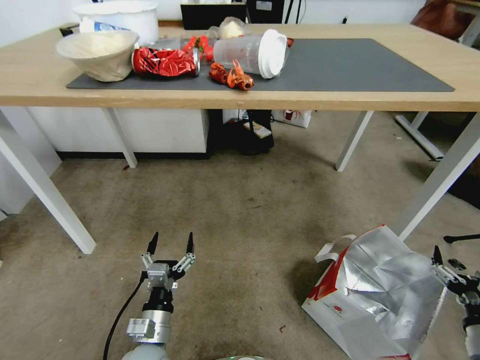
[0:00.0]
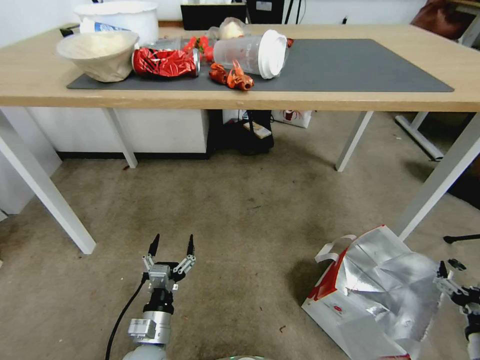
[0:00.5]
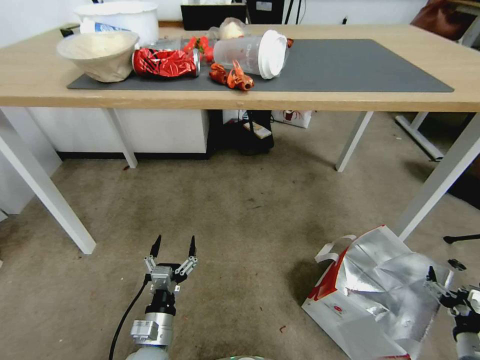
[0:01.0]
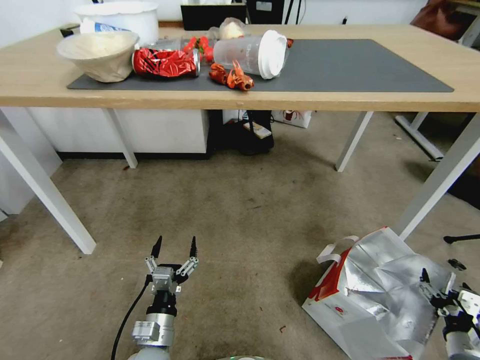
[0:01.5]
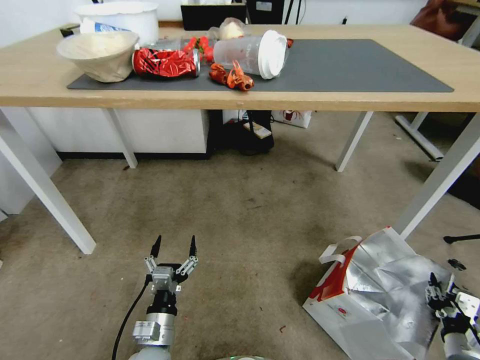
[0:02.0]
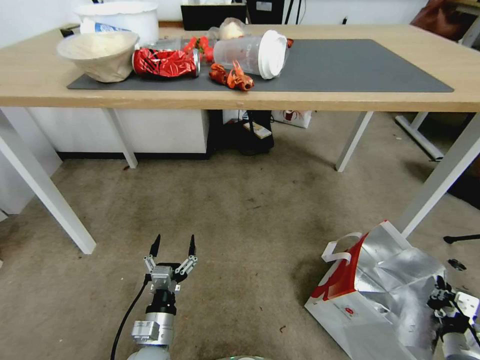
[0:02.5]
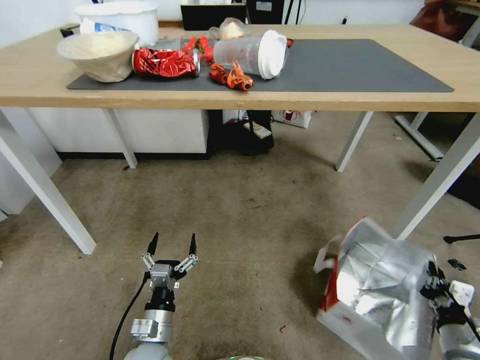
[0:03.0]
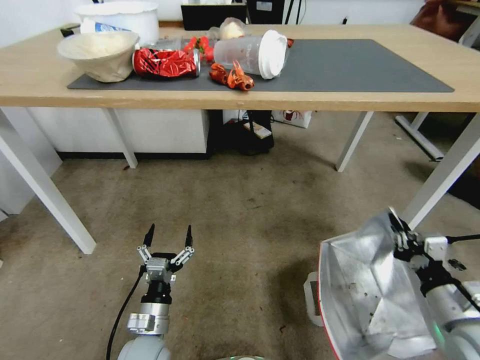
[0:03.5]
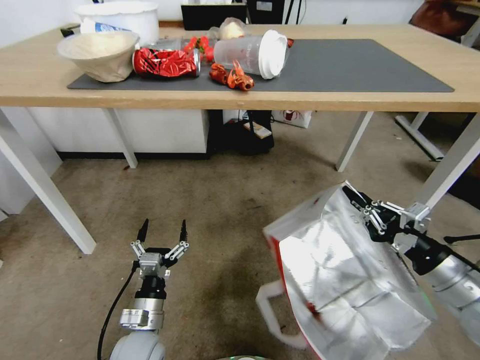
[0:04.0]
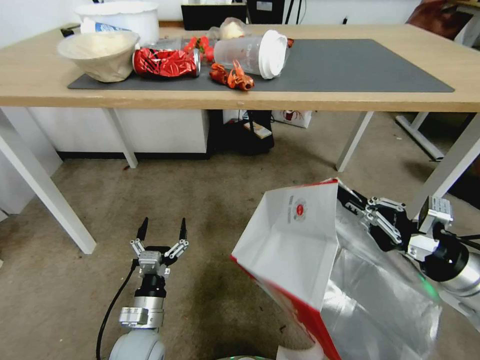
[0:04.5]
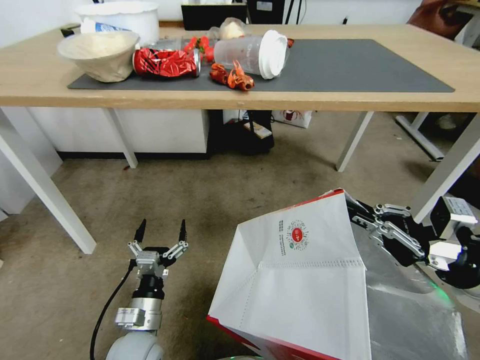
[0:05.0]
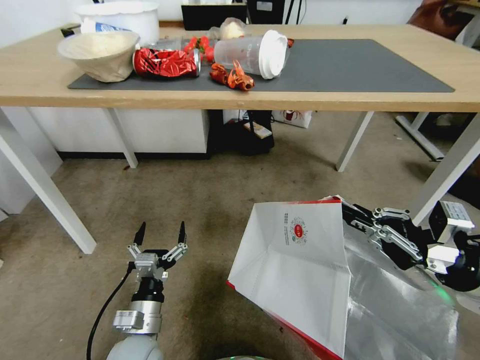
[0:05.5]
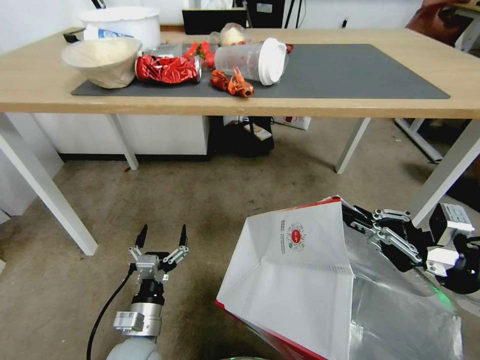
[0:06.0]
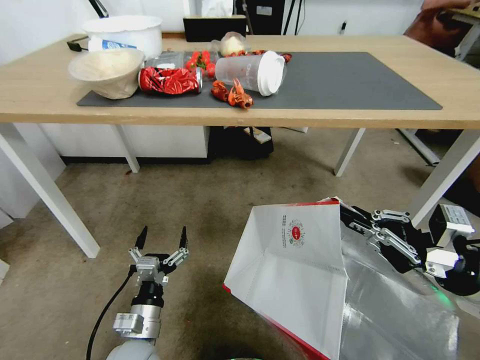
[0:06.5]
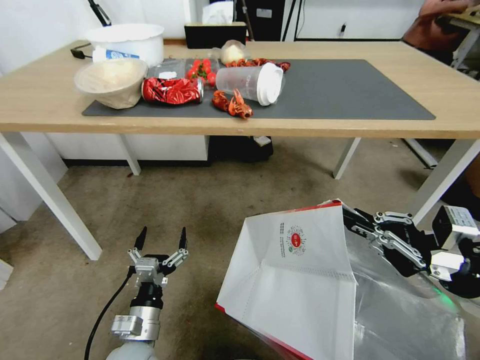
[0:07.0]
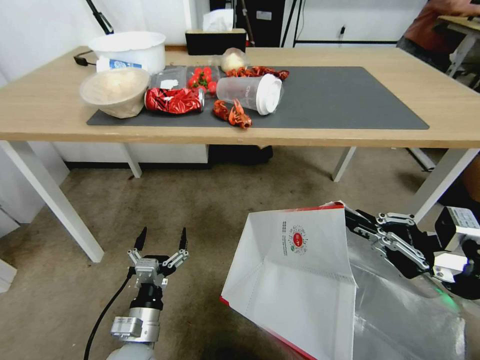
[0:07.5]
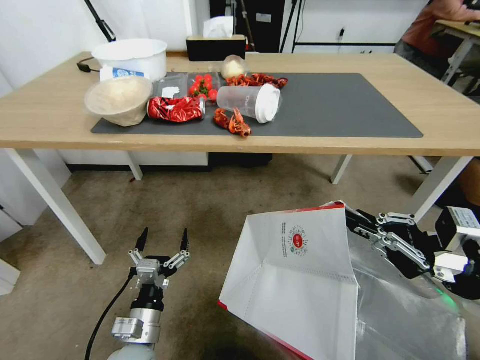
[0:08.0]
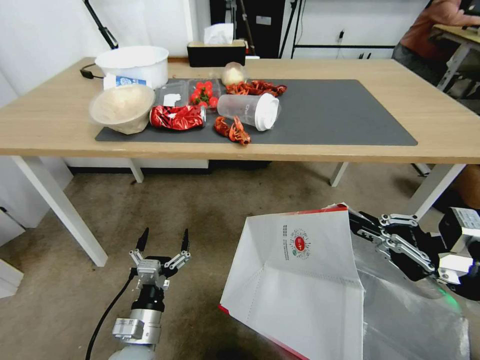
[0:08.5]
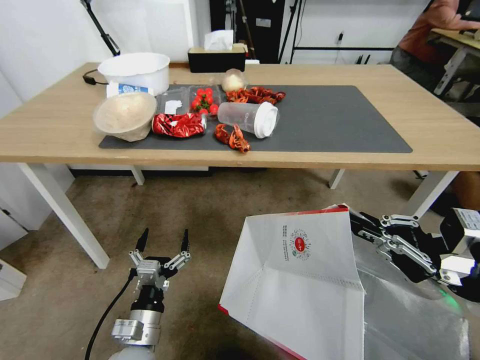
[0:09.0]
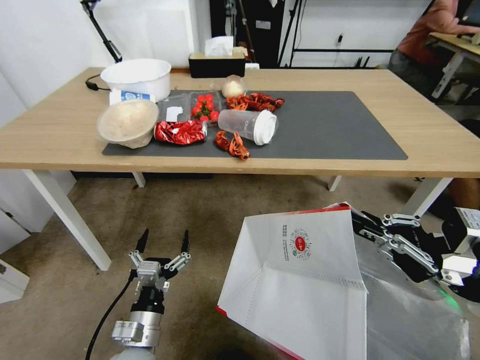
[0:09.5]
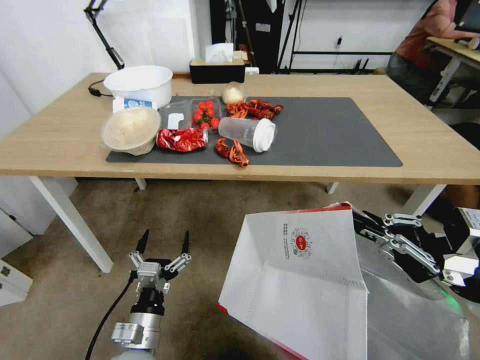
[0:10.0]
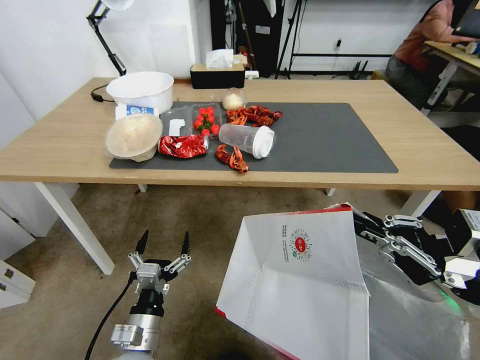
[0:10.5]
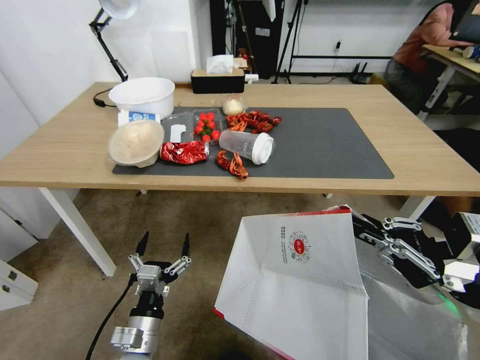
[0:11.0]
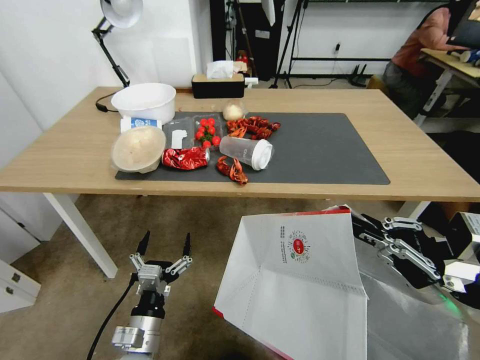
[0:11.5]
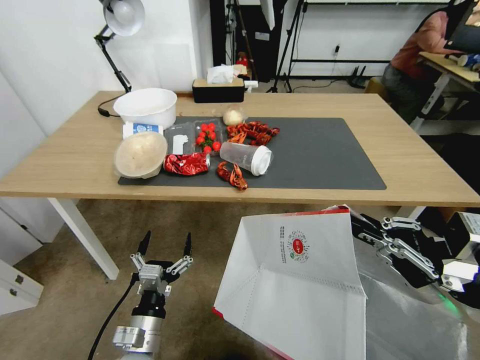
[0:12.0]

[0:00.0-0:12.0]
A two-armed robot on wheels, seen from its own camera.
Task of the whole recording: Pick up the food delivery bag from the floor and place it on the table.
0:00.0 to 0:02.0: The right gripper travels downward by about 10 cm, and closes up.
0:02.0 to 0:04.0: The right gripper heads upward, covering about 20 cm, and closes its fingers.
0:04.0 to 0:06.0: The right gripper is displaced upward by approximately 5 cm.

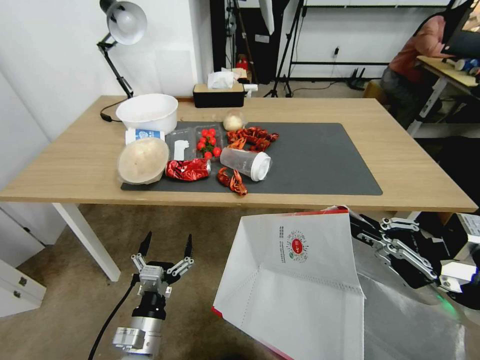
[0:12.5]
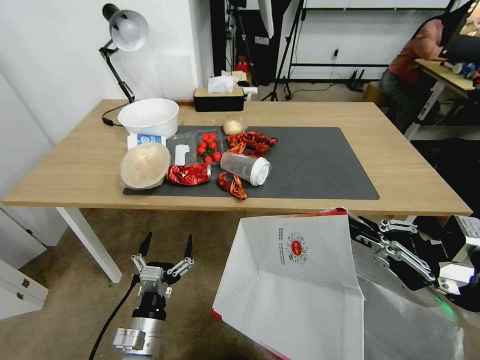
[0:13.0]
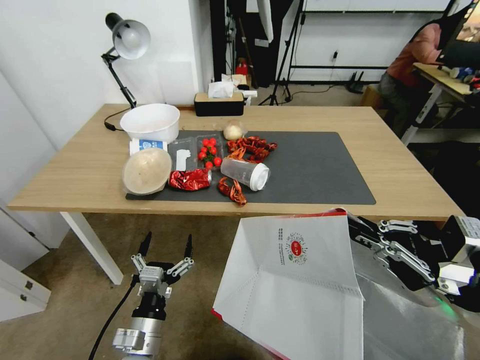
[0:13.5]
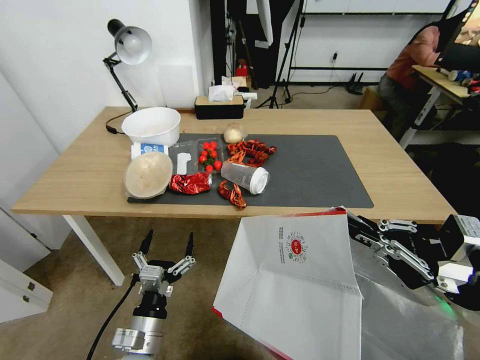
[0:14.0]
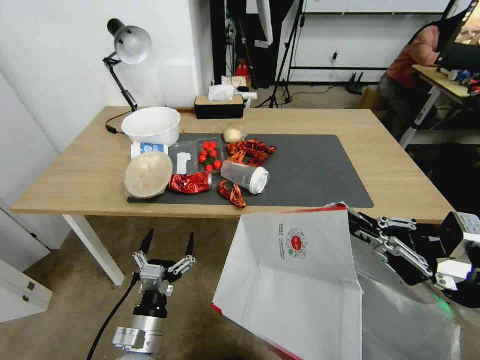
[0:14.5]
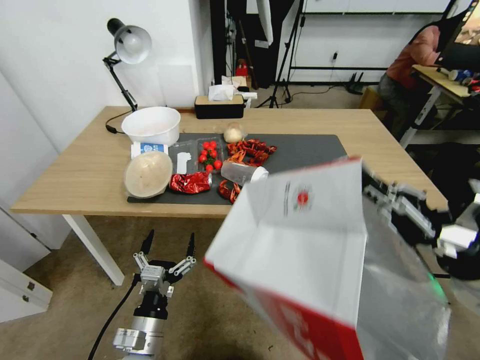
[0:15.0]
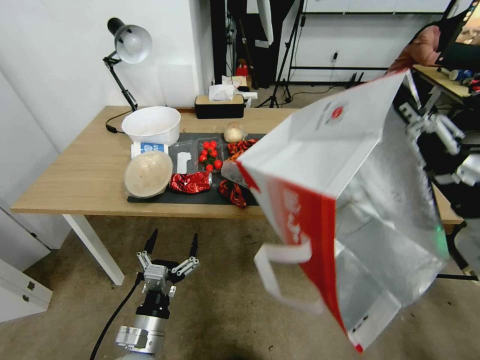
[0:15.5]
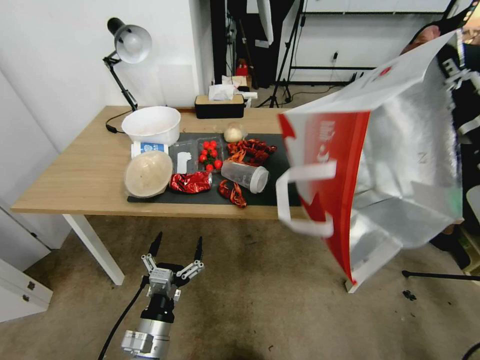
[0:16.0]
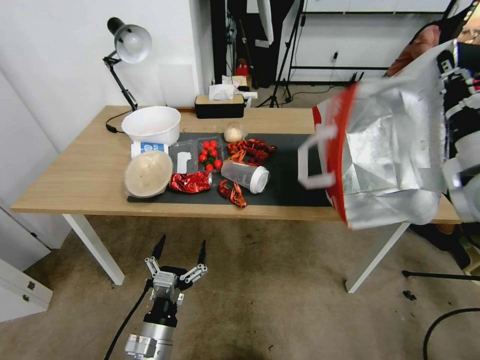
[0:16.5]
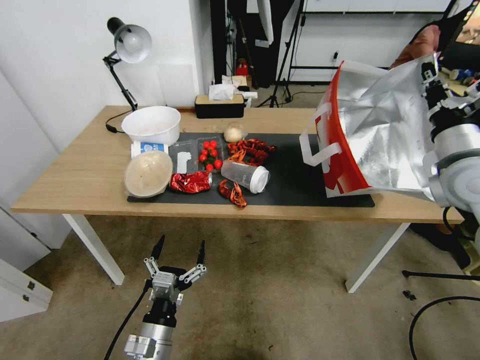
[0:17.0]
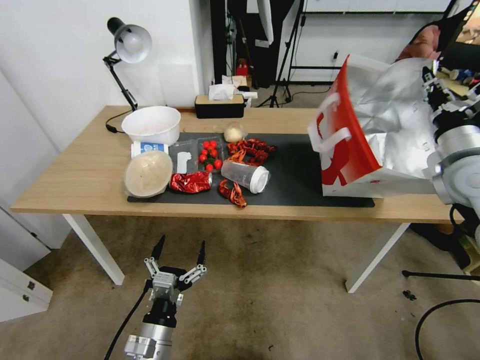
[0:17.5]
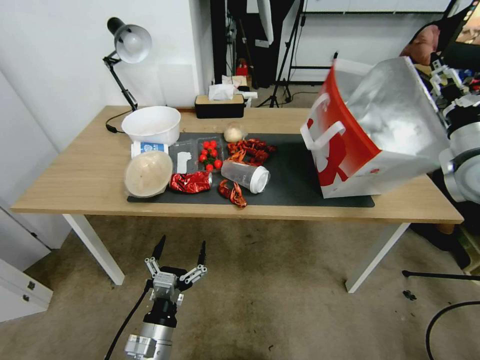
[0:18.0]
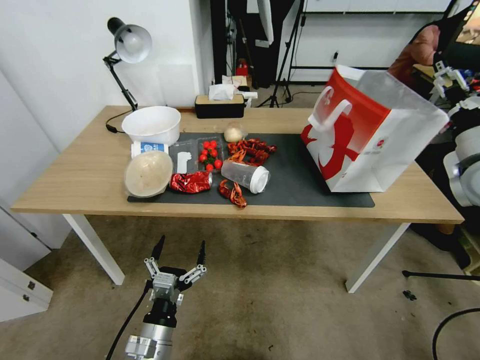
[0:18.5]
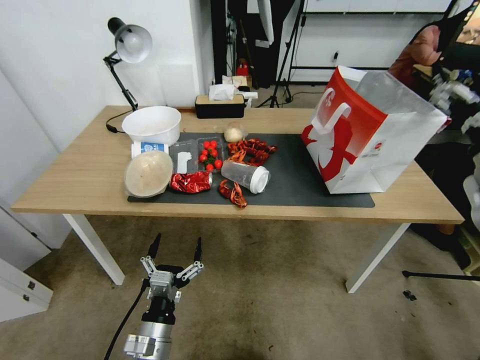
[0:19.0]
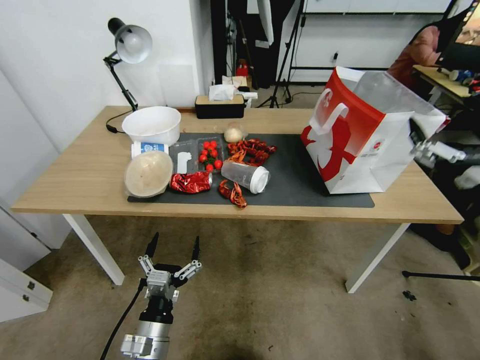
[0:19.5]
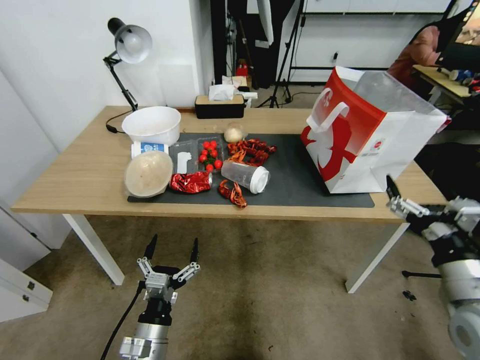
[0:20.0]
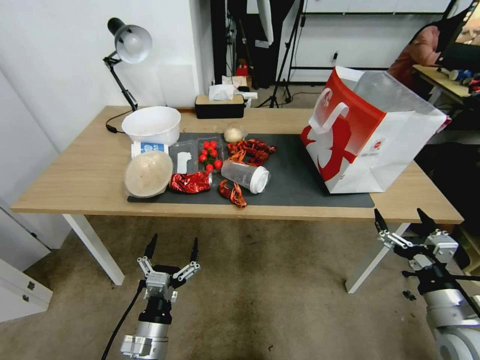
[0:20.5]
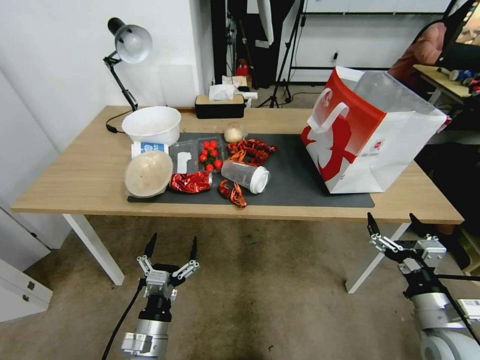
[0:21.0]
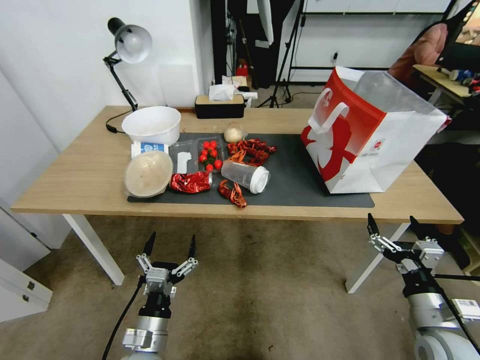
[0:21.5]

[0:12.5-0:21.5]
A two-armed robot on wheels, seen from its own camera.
Task of the whole recording: Pick up the food delivery bag from the floor and place it on the table.
0:14.5 to 0:17.0: The right gripper is displaced forward by some 20 cm.
0:17.0 to 0:19.5: The right gripper is displaced backward by roughly 15 cm, and opens up.
0:19.5 to 0:21.5: The right gripper goes about 20 cm downward.

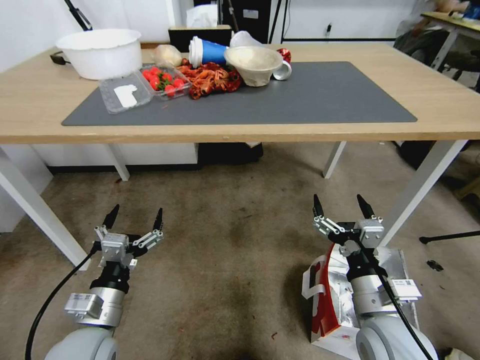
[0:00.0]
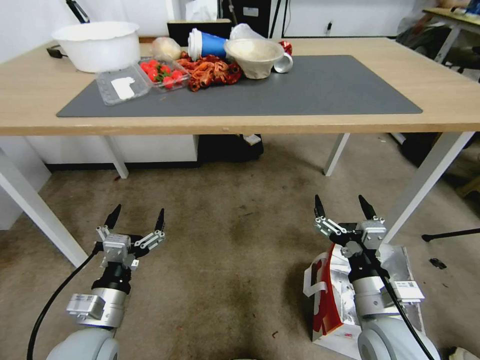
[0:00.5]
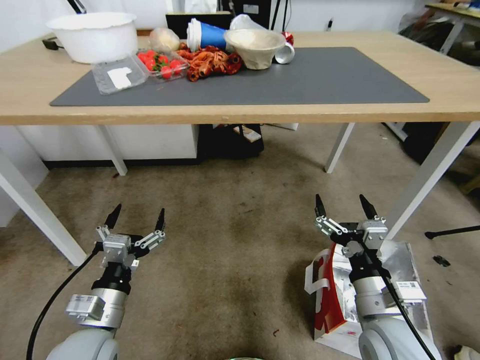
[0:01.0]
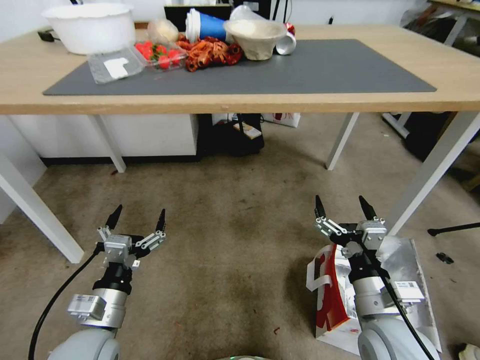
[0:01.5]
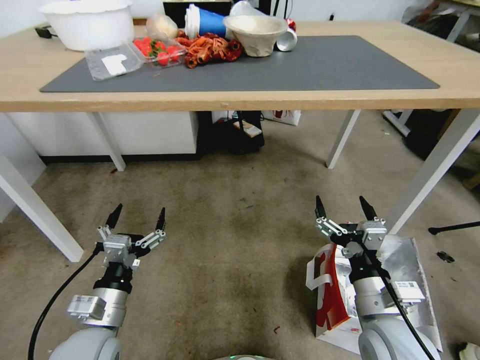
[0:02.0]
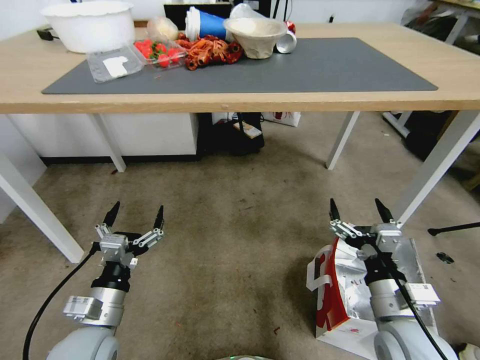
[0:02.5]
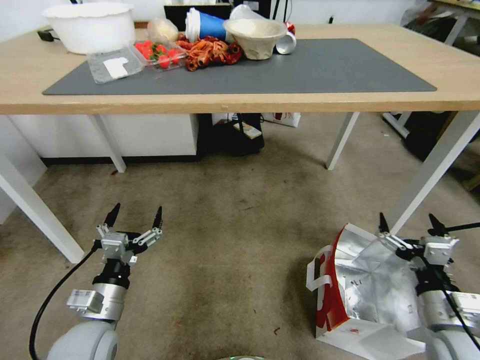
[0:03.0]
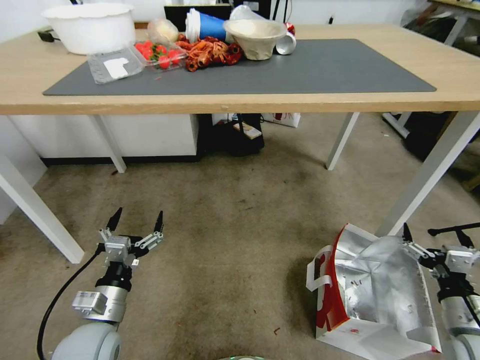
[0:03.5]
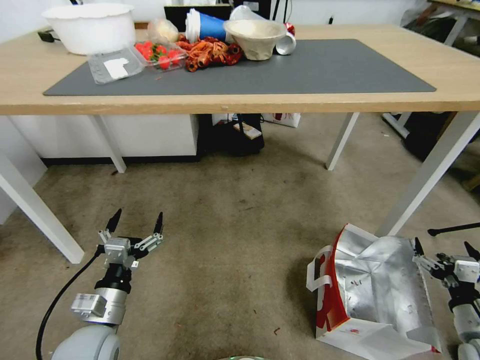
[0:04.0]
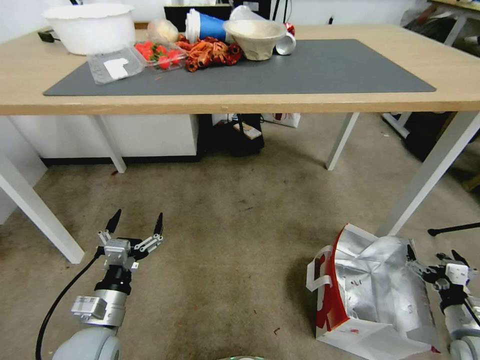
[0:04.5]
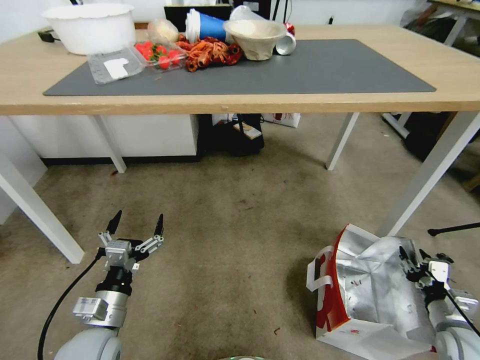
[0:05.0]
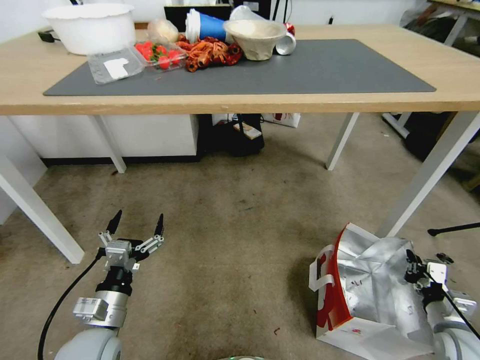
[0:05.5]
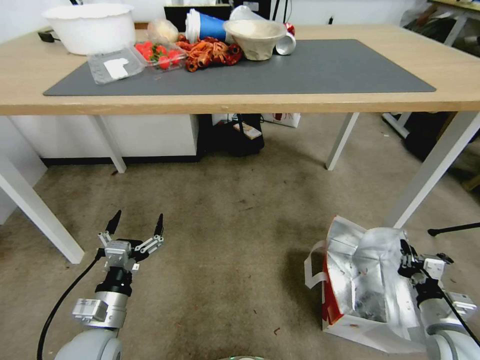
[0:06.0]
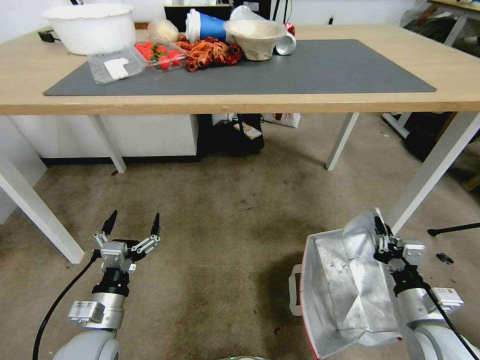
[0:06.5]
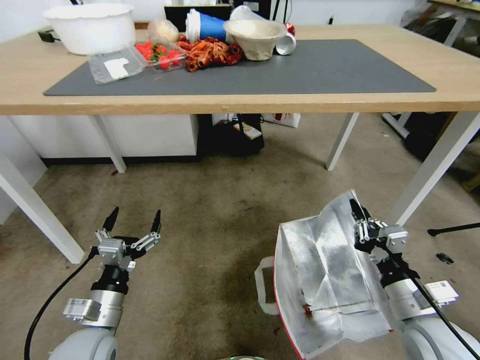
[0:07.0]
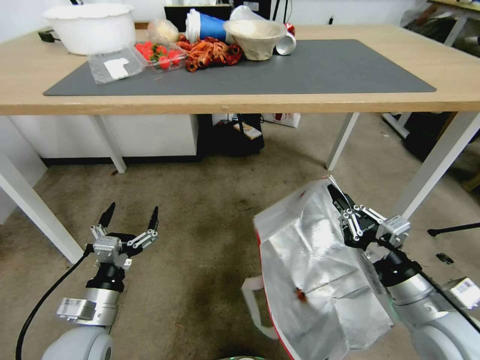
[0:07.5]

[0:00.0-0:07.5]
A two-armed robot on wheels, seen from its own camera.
Task of the whole recording: Pick up the food delivery bag from the floor and place it on the table.
0:02.0 to 0:04.0: The right gripper shifts roughly 25 cm to the right and downward.
0:04.0 to 0:05.5: The right gripper shifts about 5 cm downward, and closes up.
0:05.5 to 0:07.5: The right gripper goes roughly 25 cm upward and to the left.
